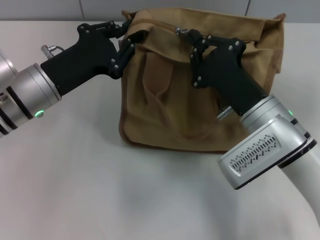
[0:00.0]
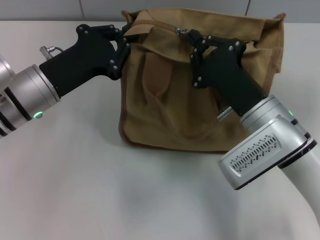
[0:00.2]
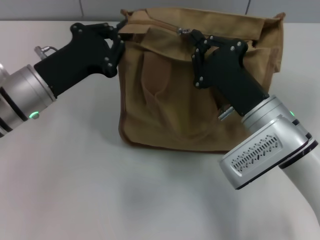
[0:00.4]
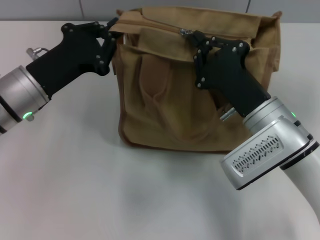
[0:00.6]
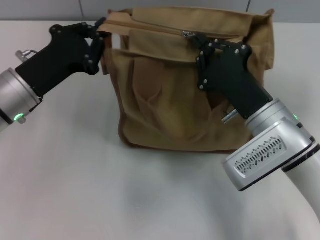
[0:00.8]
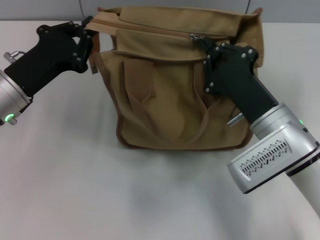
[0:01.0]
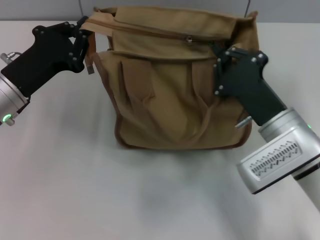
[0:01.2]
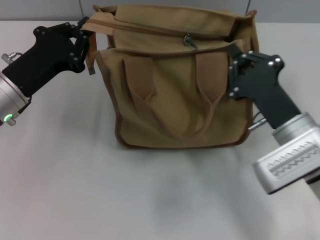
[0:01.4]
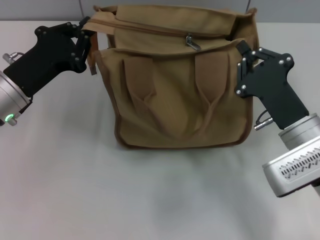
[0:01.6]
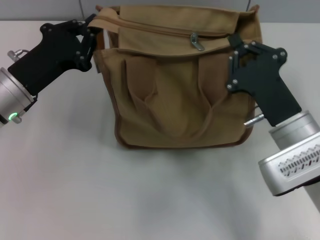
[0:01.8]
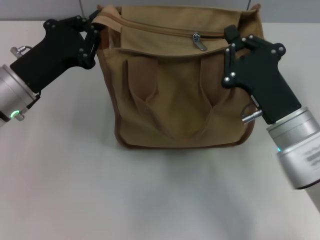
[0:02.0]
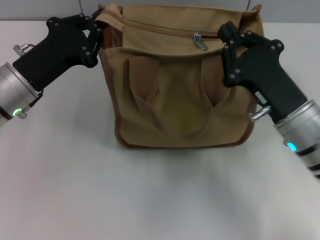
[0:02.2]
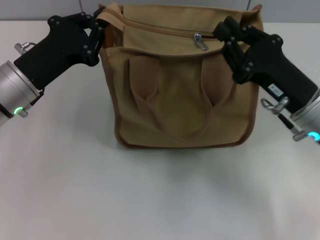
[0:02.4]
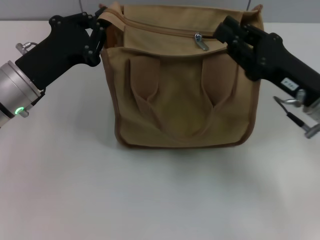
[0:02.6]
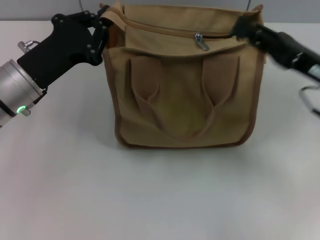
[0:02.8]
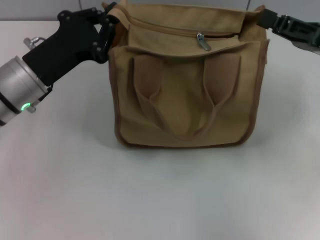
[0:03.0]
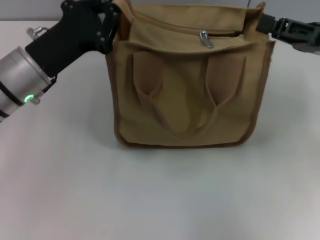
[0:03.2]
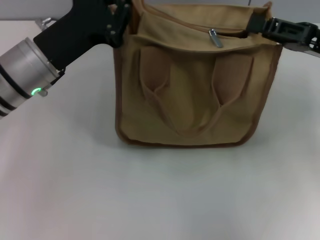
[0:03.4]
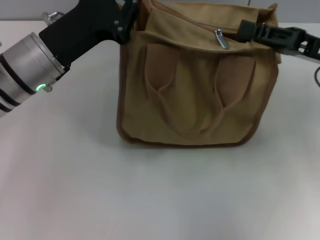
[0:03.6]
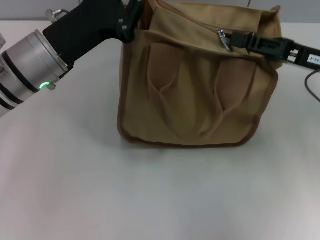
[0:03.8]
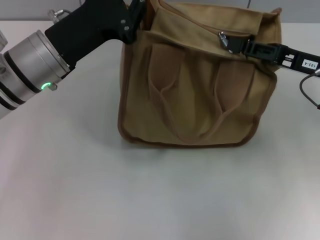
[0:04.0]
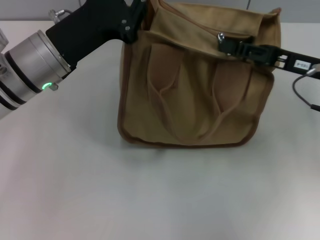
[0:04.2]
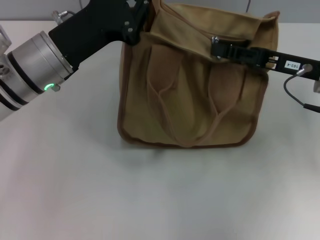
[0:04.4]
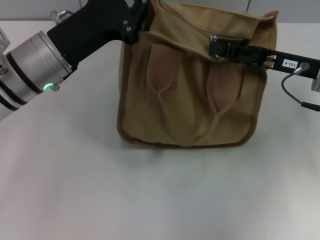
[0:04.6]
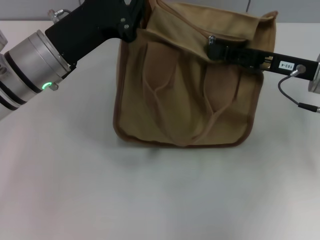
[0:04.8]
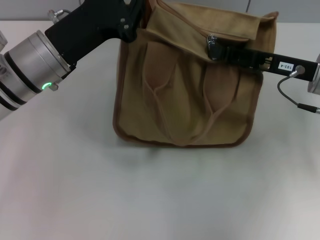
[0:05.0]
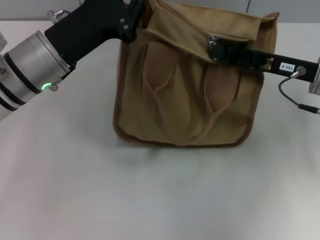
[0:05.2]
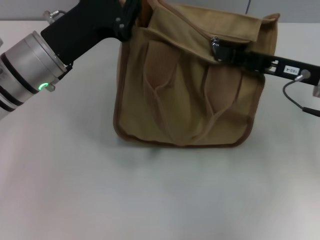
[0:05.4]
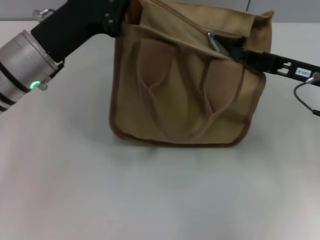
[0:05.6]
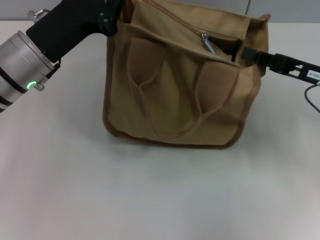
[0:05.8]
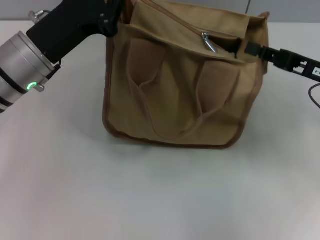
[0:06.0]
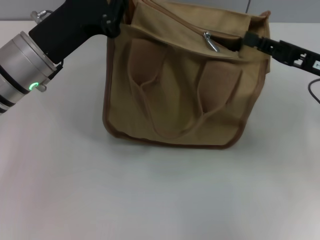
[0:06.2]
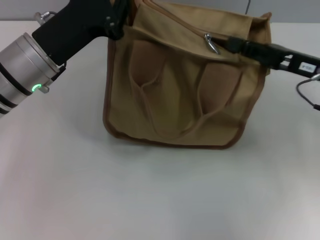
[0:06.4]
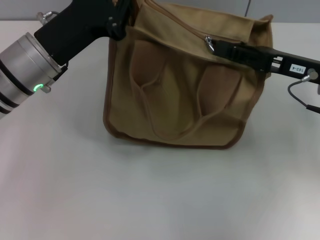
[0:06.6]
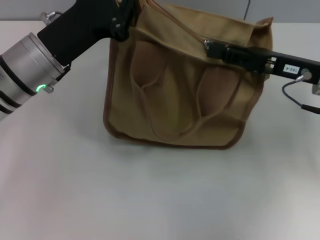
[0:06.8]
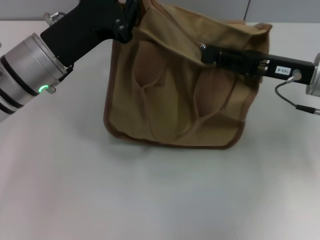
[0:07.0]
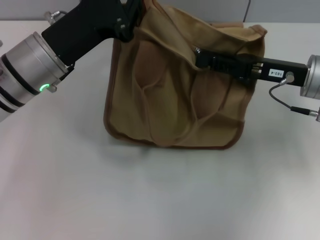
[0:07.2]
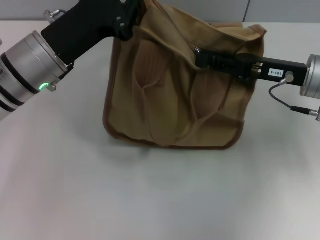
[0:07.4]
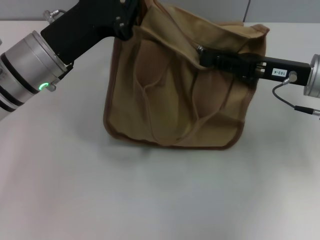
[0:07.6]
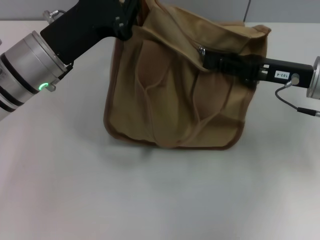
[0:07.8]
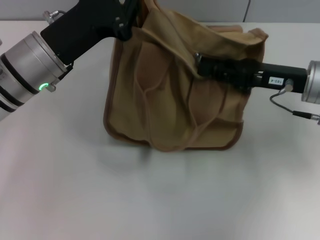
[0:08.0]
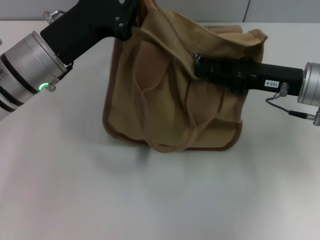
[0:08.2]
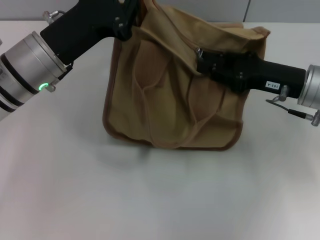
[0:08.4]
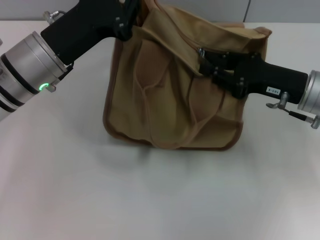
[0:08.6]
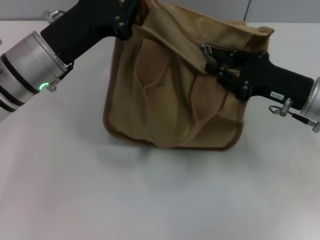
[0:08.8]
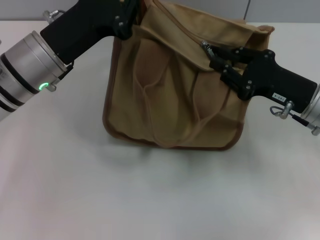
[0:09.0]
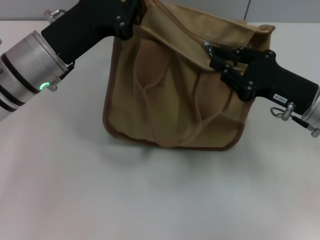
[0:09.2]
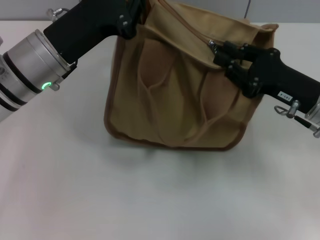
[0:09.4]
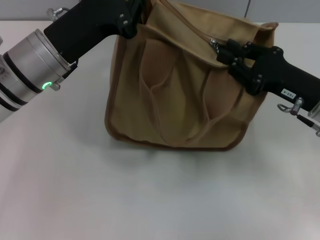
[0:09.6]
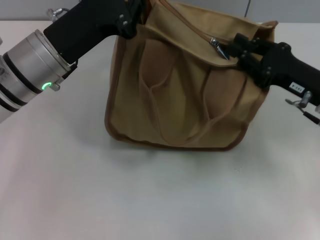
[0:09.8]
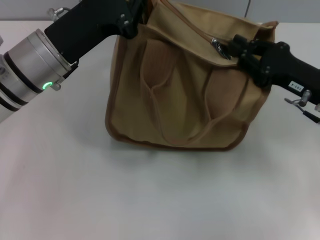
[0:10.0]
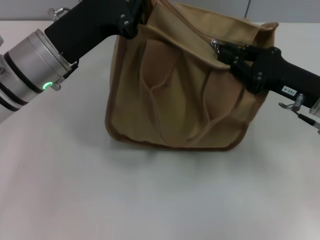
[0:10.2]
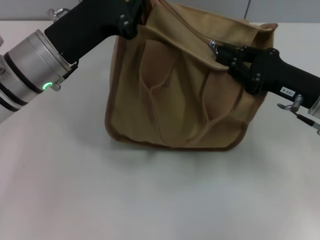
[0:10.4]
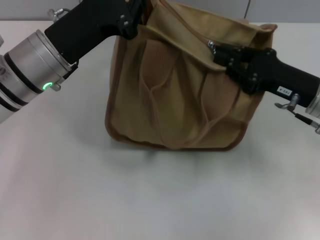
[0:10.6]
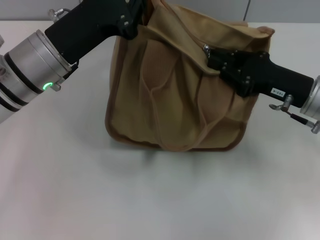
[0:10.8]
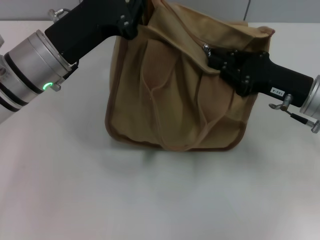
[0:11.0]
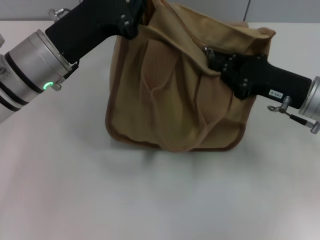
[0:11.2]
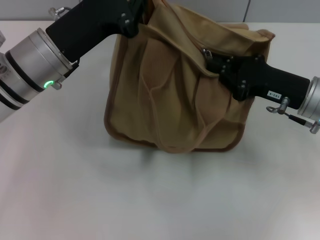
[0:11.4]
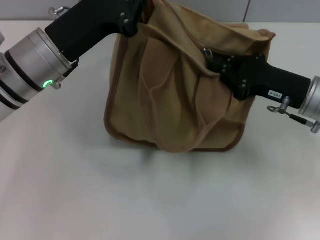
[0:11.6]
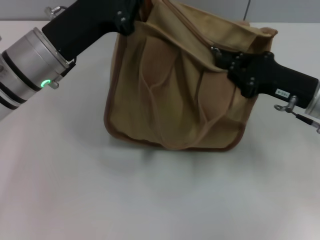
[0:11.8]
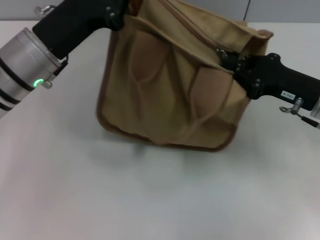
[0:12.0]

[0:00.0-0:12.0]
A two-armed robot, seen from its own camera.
0:00.0 to 0:01.6: The left gripper closes up. Meanwhile the right gripper changes place by roughly 5 cm.
0:01.6 to 0:03.0: The right gripper heads to the right, upward and forward, covering approximately 15 cm.
0:03.0 to 0:04.4: The right gripper moves roughly 5 cm.
0:04.4 to 0:06.0: The grippers move only a little.
0:06.0 to 0:07.6: The right gripper moves approximately 5 cm, and opens.
0:07.6 to 0:09.0: The right gripper shifts by roughly 5 cm.
0:09.0 to 0:12.0: There are only small adjustments of the grippers.

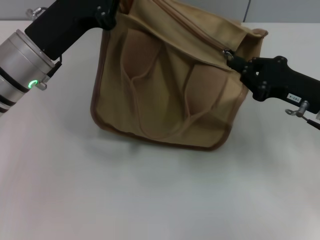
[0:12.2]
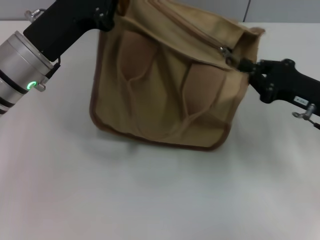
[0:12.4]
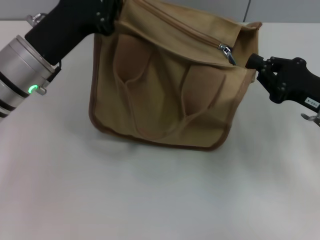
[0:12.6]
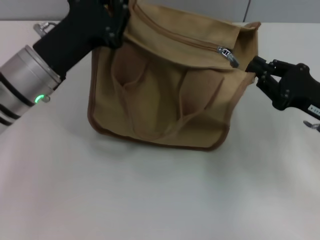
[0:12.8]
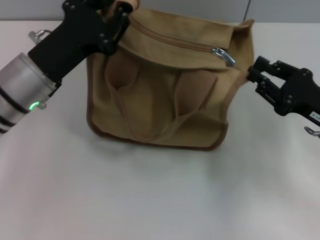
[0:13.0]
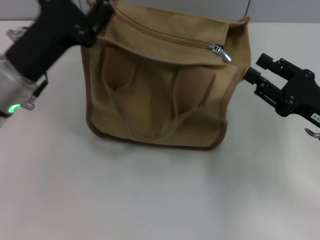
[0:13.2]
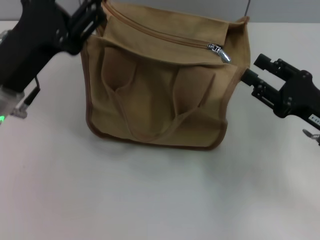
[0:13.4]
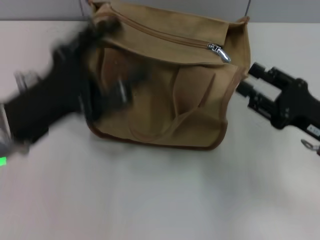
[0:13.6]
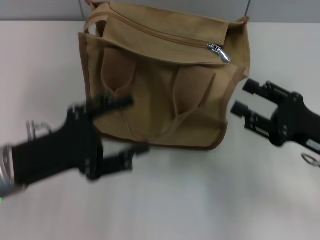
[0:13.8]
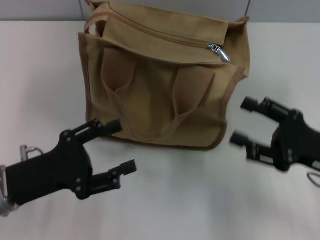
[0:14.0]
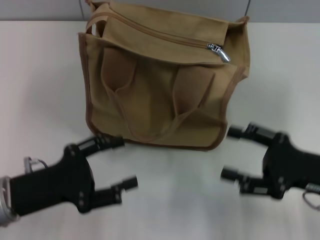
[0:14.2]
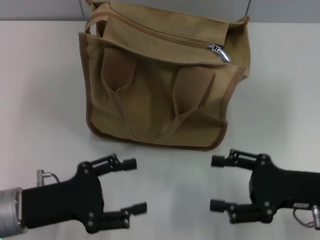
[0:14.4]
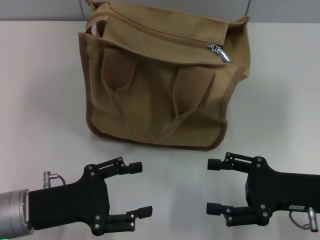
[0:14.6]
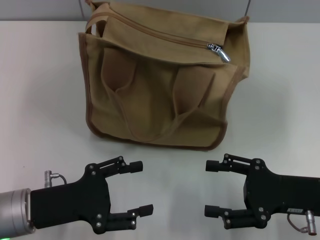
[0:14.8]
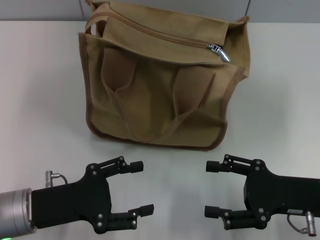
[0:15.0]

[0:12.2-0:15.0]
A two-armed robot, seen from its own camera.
0:12.2 to 0:13.6: Both grippers move backward, roughly 5 cm. The left gripper opens up; the right gripper opens up.
0:13.6 to 0:15.0: The left gripper heads downward and backward, covering about 10 cm. Meanwhile the right gripper ends up approximately 5 cm from where it was.
